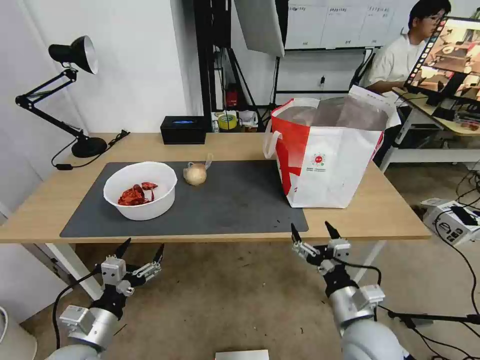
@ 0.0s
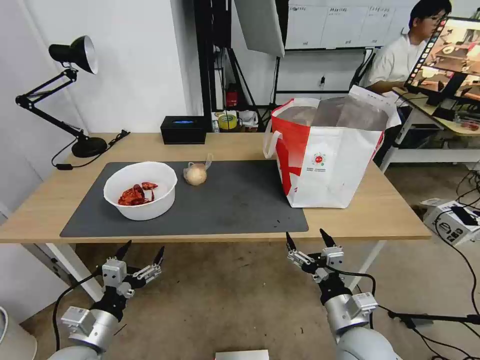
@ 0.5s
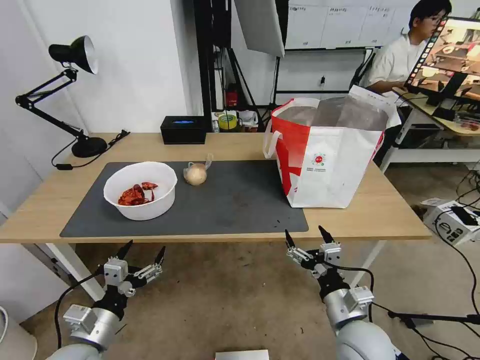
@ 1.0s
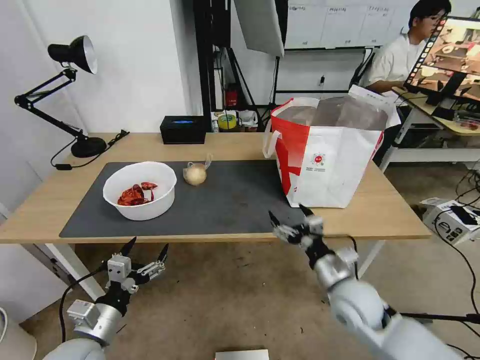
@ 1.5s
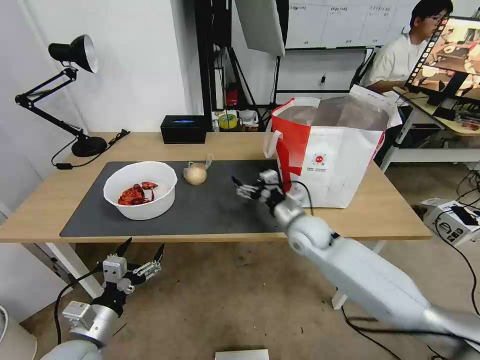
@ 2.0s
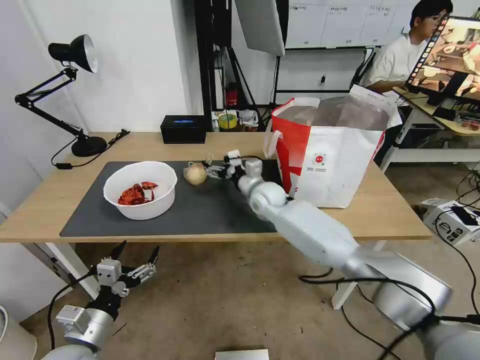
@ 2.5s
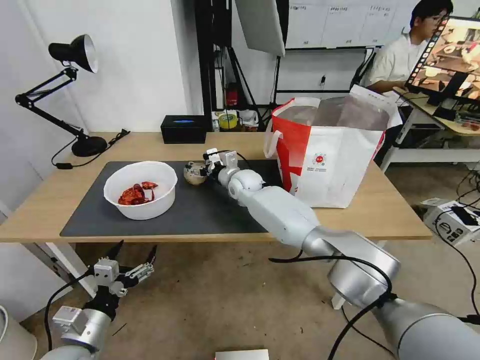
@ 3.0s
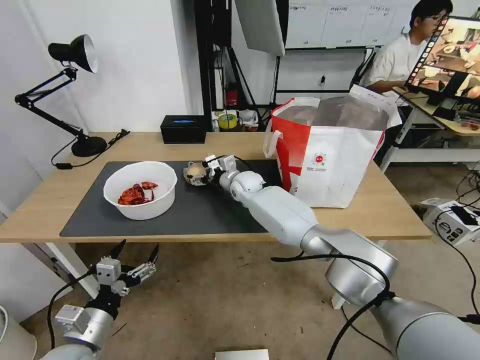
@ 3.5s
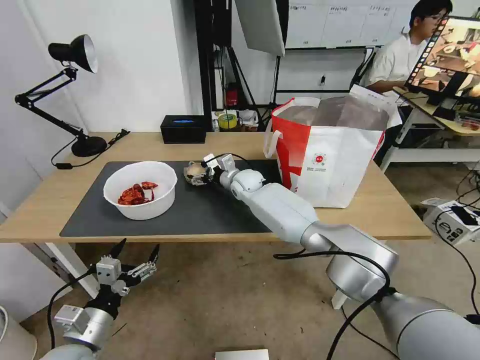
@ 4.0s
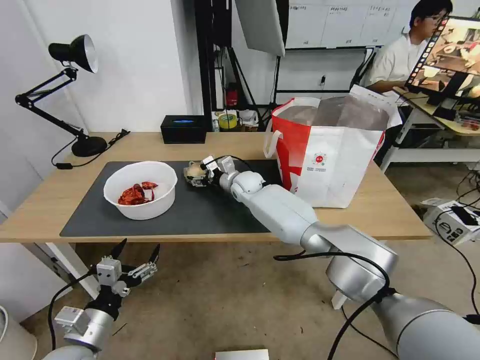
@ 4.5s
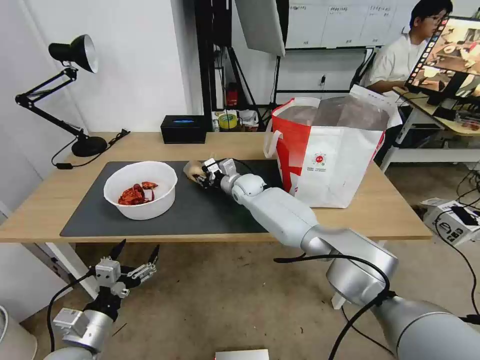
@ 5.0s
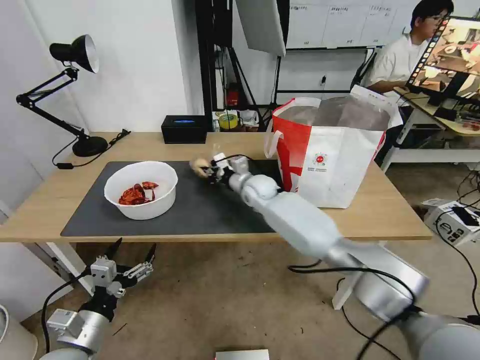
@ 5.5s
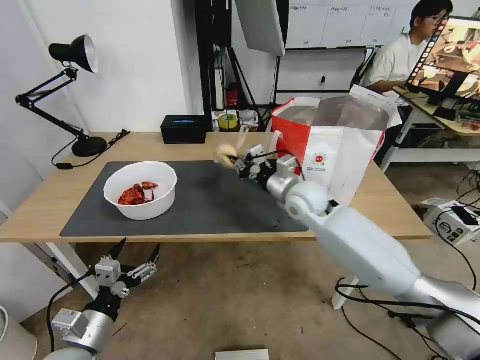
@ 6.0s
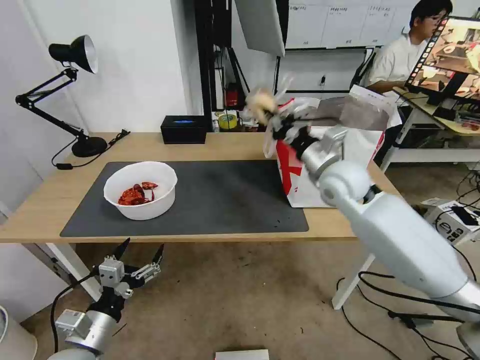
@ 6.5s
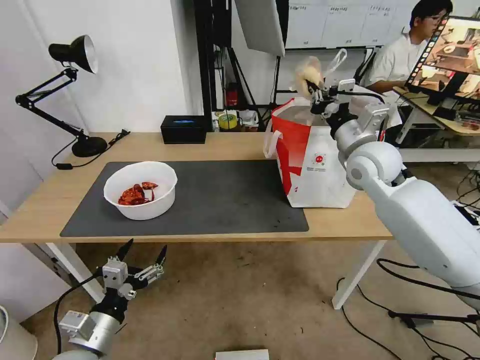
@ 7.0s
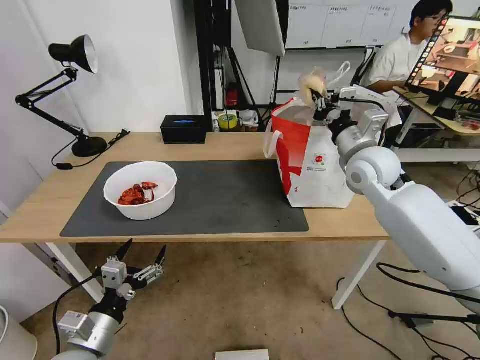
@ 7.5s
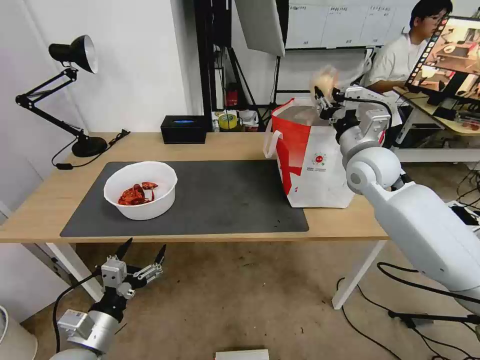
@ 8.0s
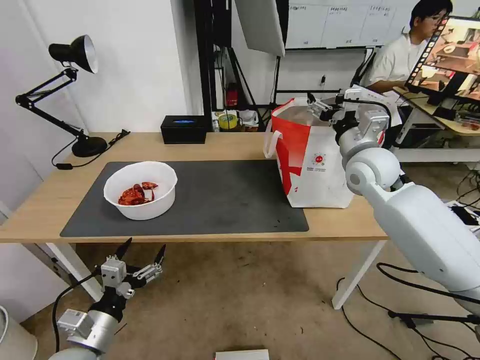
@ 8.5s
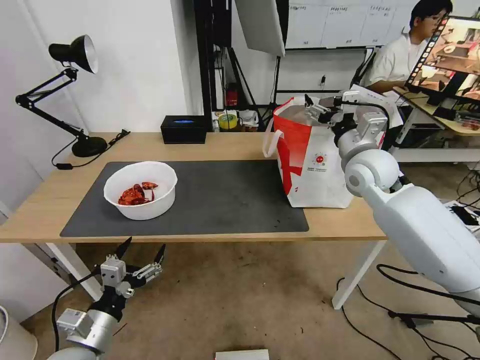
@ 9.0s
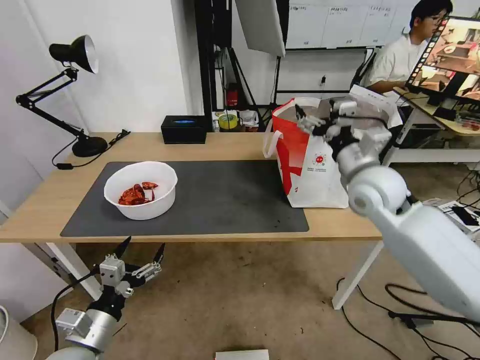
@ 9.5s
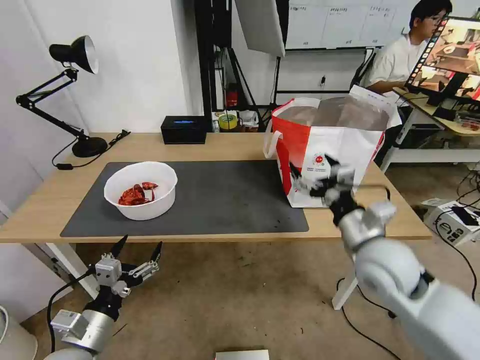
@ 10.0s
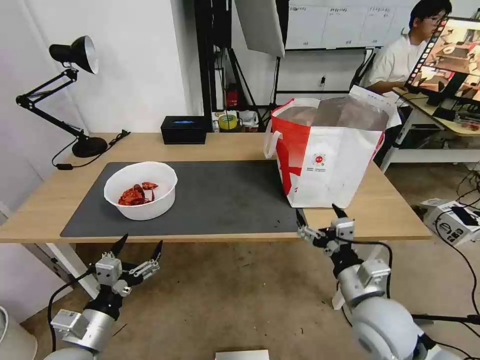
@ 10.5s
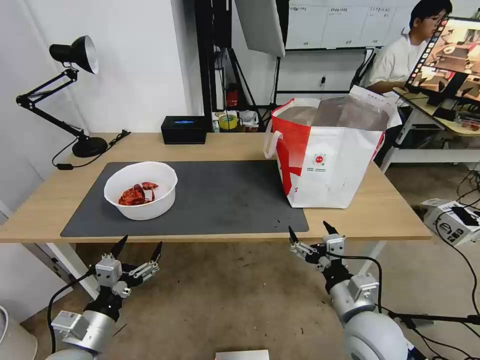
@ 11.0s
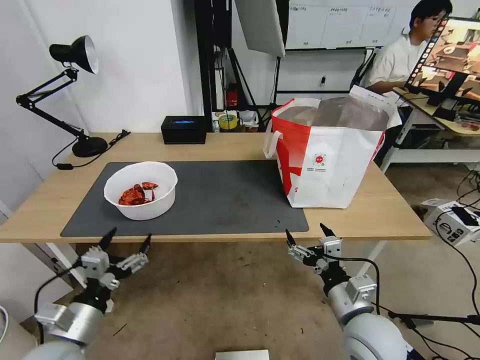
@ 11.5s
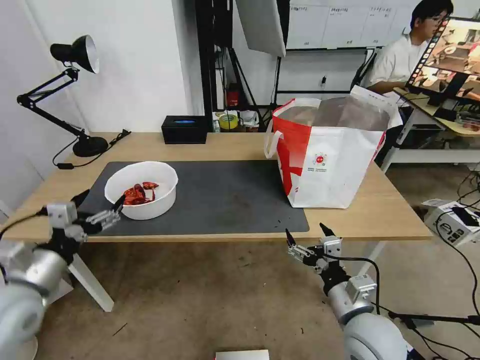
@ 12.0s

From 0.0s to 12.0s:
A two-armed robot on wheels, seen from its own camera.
Task of the whole recording: Pick up the trash from the table and place it into the takeout bag.
From 0.0s to 2.0s: The right gripper shifts roughly 25 cm forward.
From 2.0s to 4.0s: The right gripper goes about 20 cm forward and to the left.
From 4.0s to 6.0s: The right gripper shifts some 20 cm to the right, backward and upward, and closes.
From 6.0s to 8.0s: The right gripper shifts roughly 15 cm to the right and upward, and opens up.
From 8.0s to 10.0s: The right gripper travels backward and downward by approximately 20 cm, and opens its fingers.
From 10.0s to 12.0s: The right gripper heads downward and backward, covering some 15 cm. Meanwhile the left gripper travels upward, forward and to the left by some 15 cm.

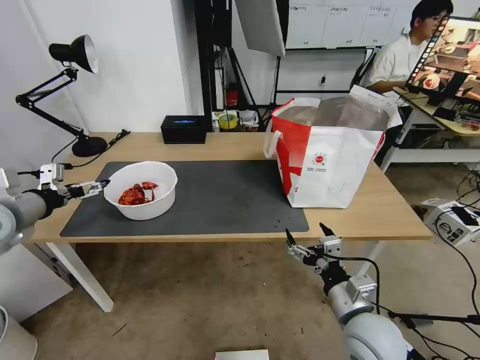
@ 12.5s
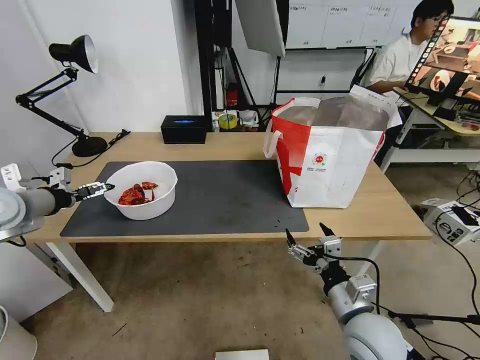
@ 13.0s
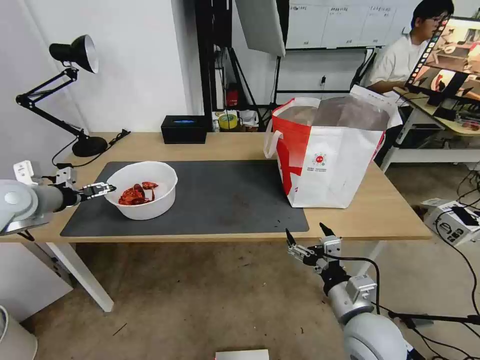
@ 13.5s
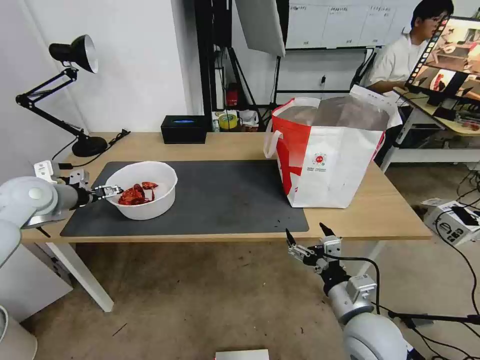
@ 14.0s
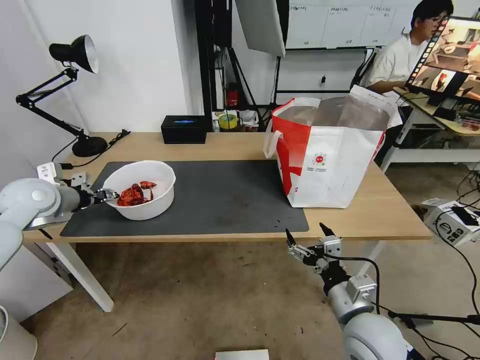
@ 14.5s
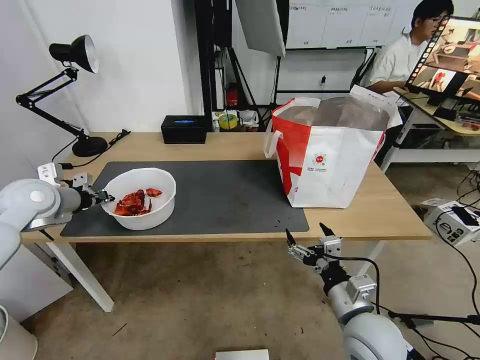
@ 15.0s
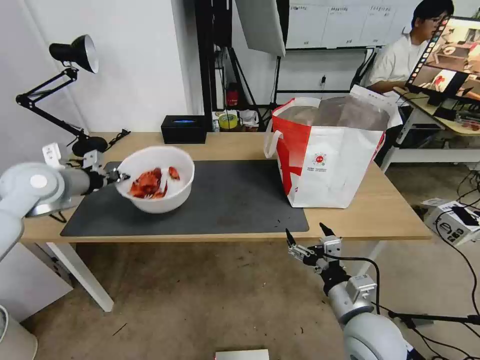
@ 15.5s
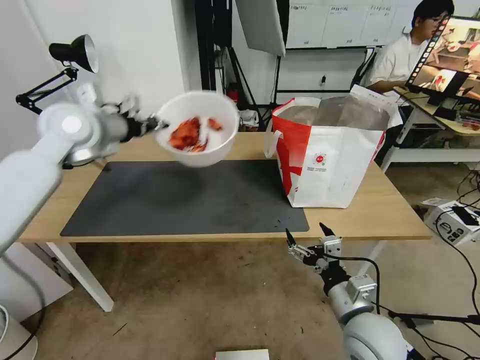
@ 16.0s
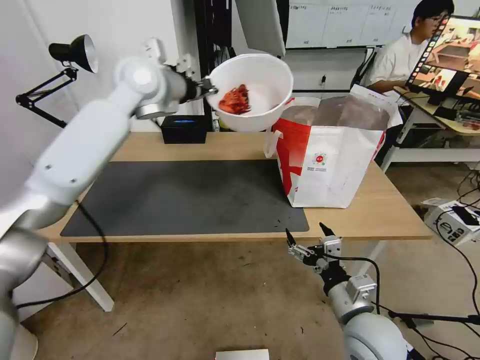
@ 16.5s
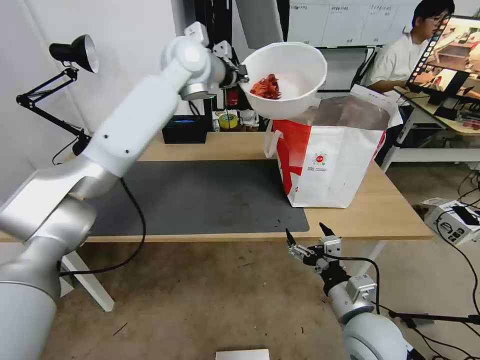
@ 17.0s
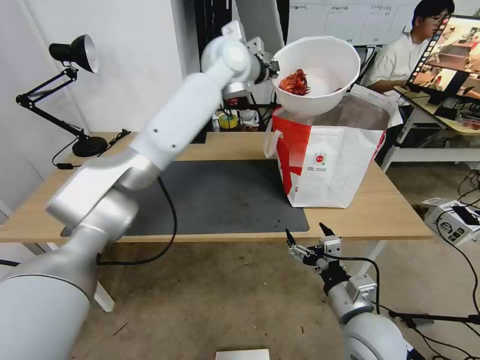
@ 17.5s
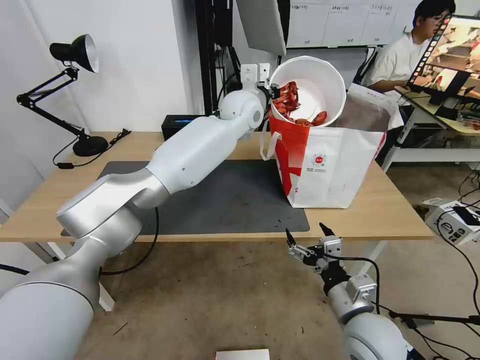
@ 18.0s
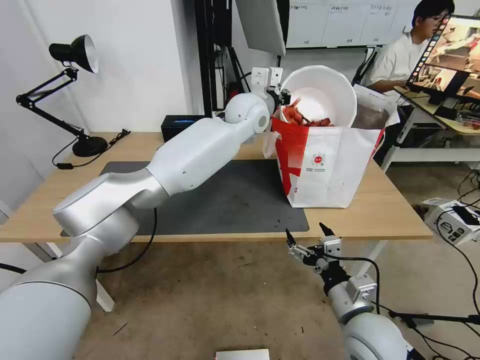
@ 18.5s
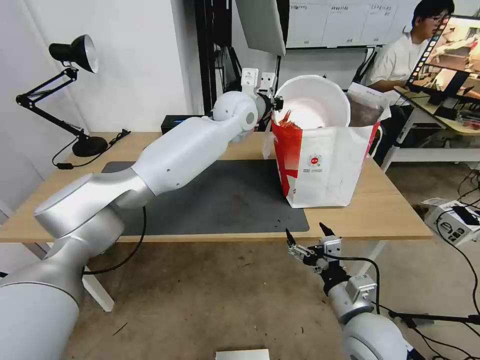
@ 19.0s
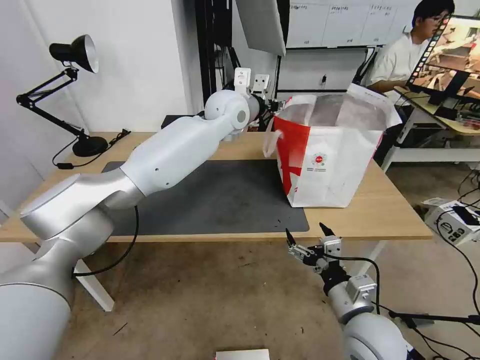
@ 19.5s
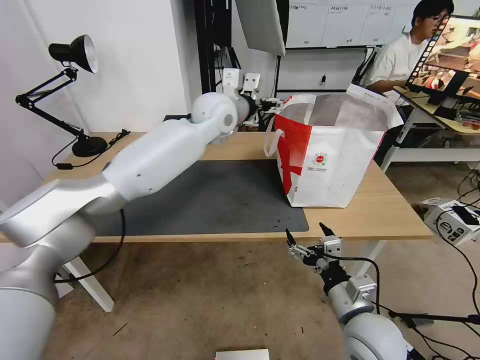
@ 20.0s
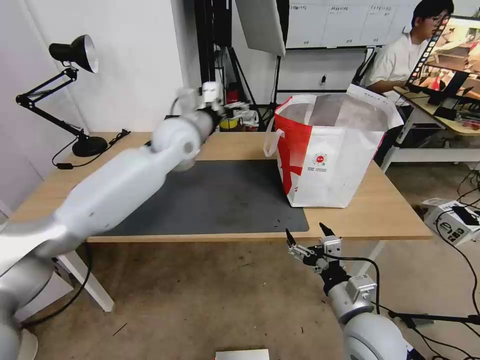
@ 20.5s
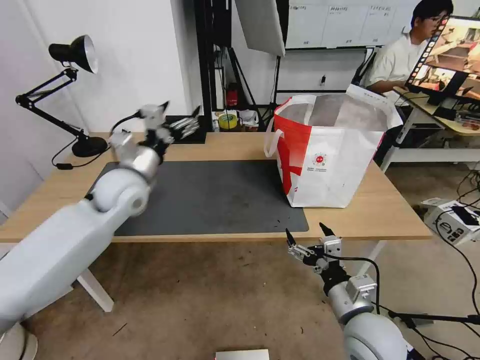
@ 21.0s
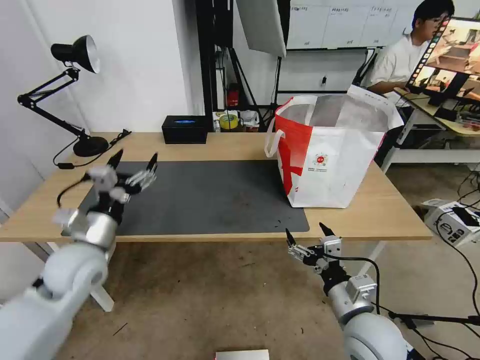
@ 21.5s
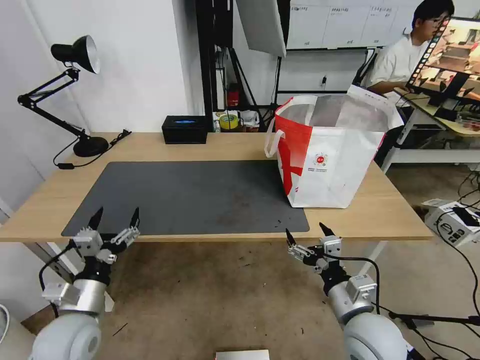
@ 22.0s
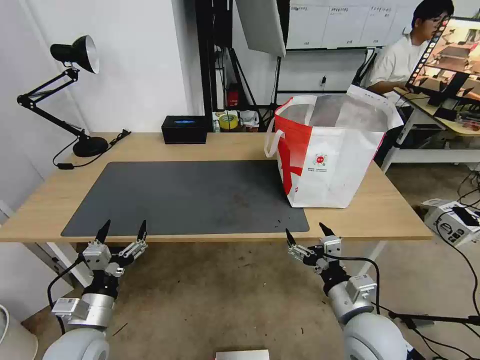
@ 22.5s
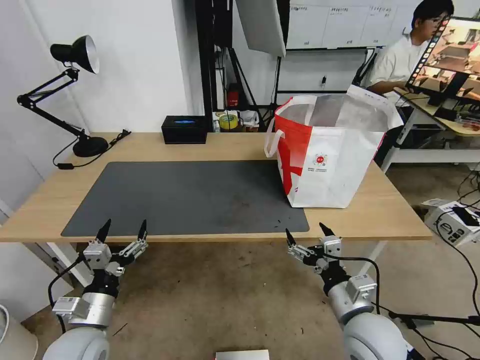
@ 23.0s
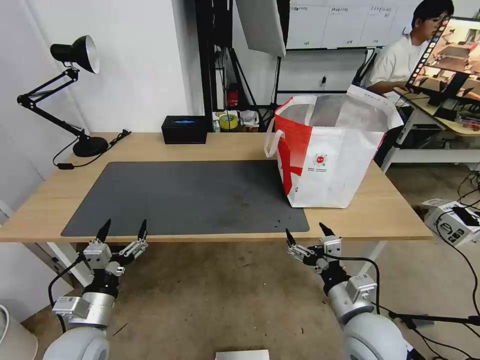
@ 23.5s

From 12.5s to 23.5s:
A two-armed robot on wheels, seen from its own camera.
Task of the whole recording: Pick up the trash from the table and place it into the takeout bag.
From 12.5s to 14.5s: The left gripper moves forward, roughly 10 cm, and closes up.
From 14.5s to 16.0s: The left gripper moves upward and to the right, approximately 20 cm, and closes its fingers.
From 16.0s to 18.0s: The left gripper goes about 30 cm to the right and forward.
From 18.0s to 20.0s: The left gripper moves to the left, some 5 cm, and opens its fingers.
From 20.0s to 21.5s: The left gripper heads backward, to the left and downward, covering approximately 40 cm.
From 21.5s to 23.5s: The left gripper shifts approximately 15 cm backward and downward.

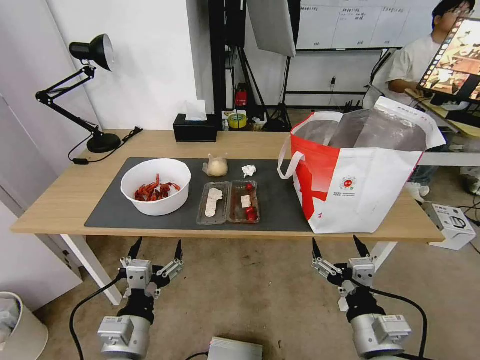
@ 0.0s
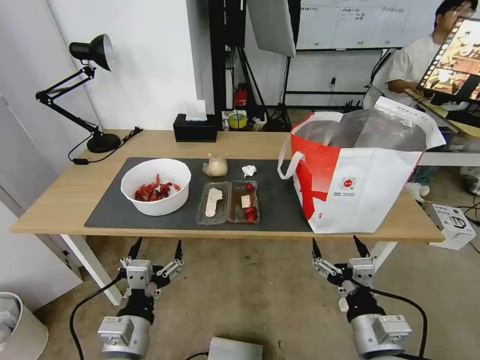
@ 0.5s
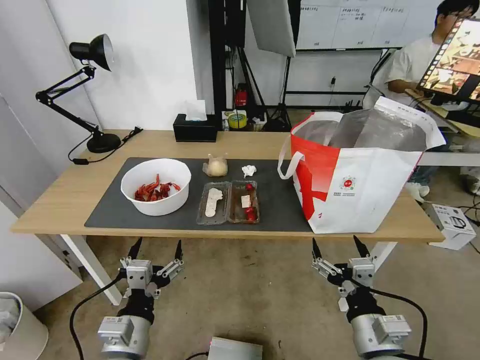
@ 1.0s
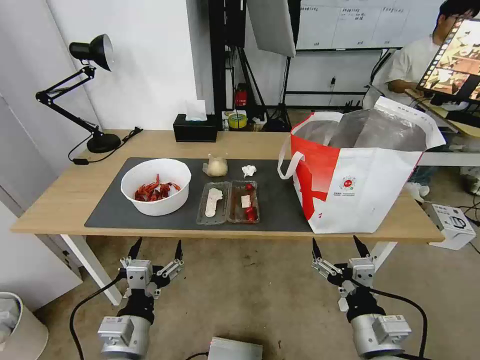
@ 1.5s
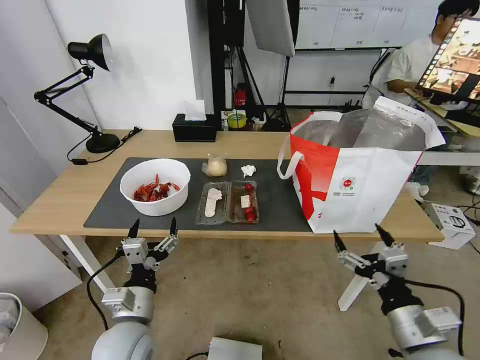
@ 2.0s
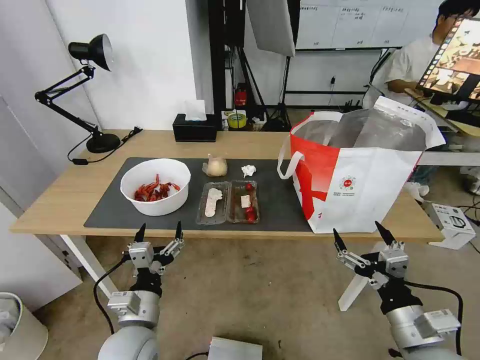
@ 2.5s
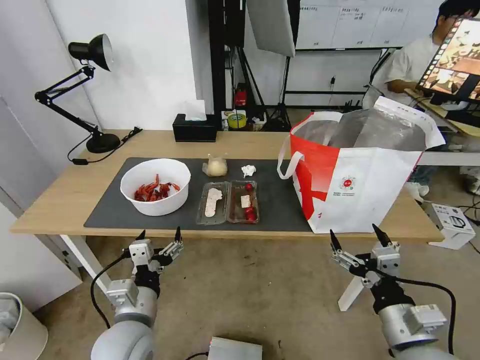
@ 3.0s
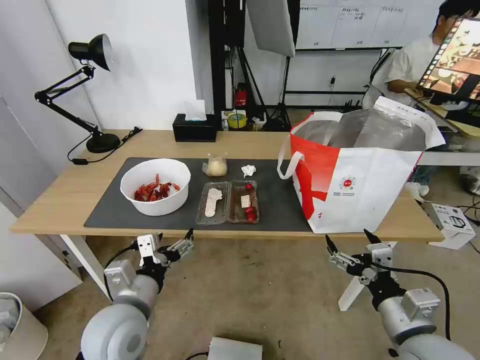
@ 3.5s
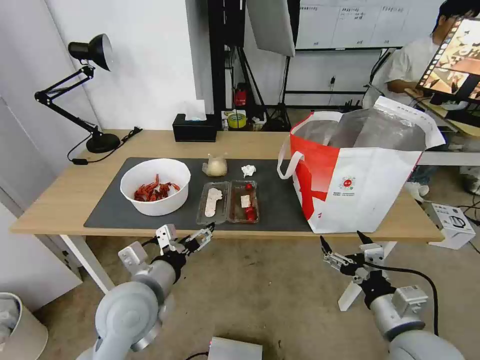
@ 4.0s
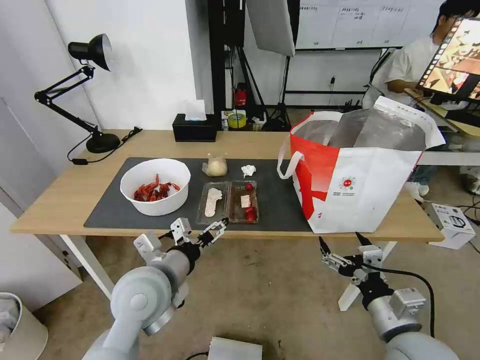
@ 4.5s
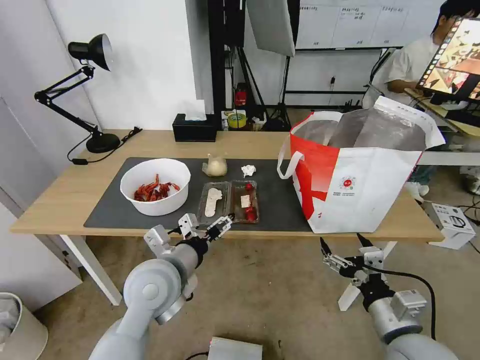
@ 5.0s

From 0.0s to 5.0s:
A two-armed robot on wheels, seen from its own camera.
Task of the whole recording: Pick up the trash from the table and place it into the takeout bag.
From 2.5s to 5.0s: The left gripper goes roughly 15 cm upward and forward.
